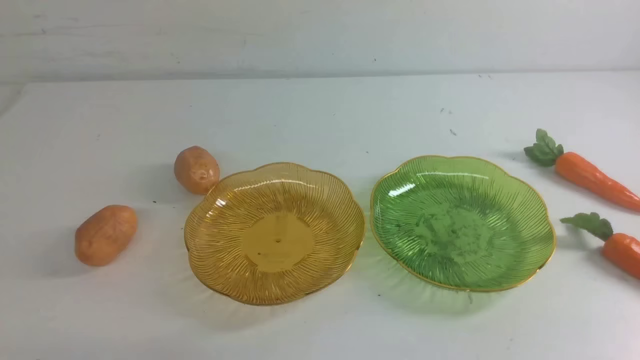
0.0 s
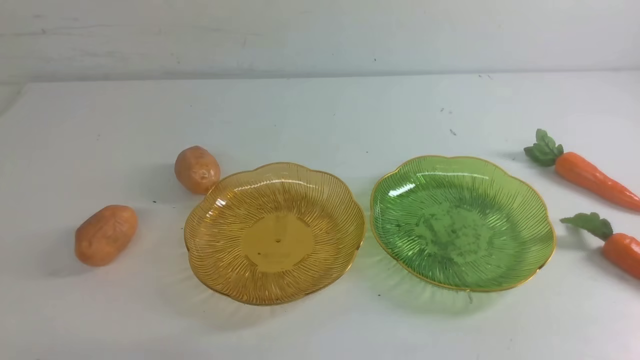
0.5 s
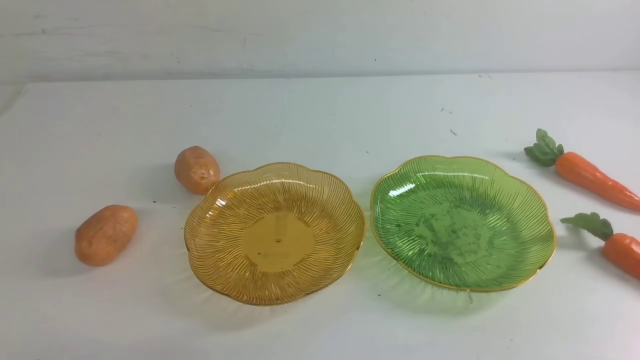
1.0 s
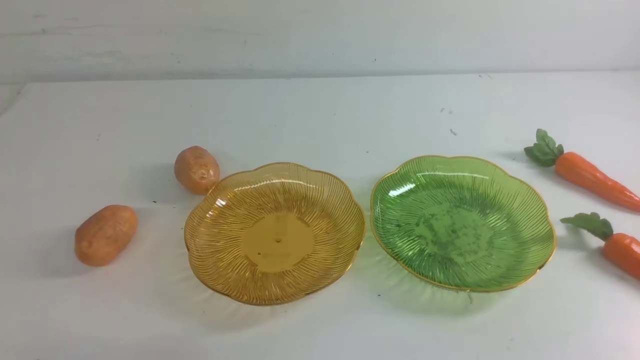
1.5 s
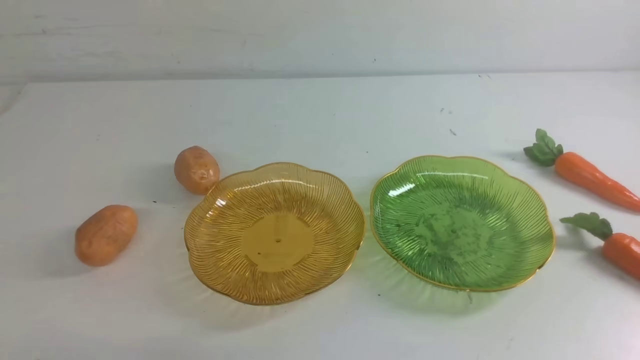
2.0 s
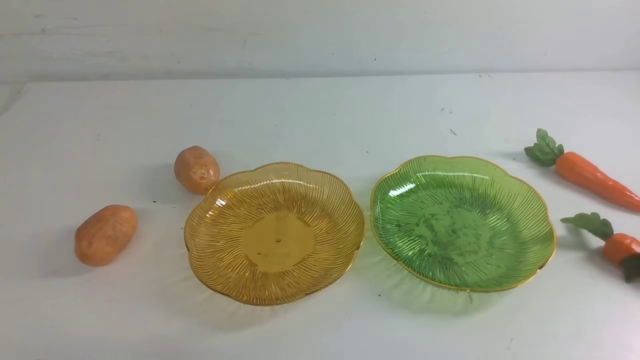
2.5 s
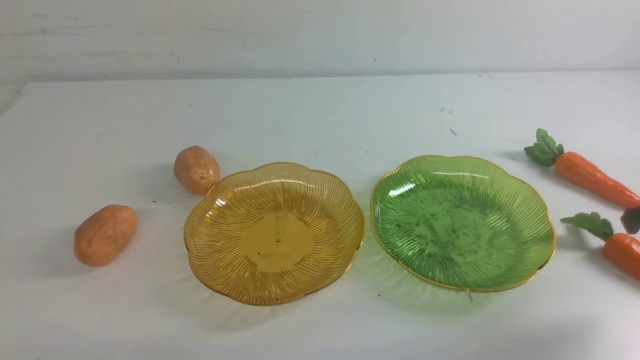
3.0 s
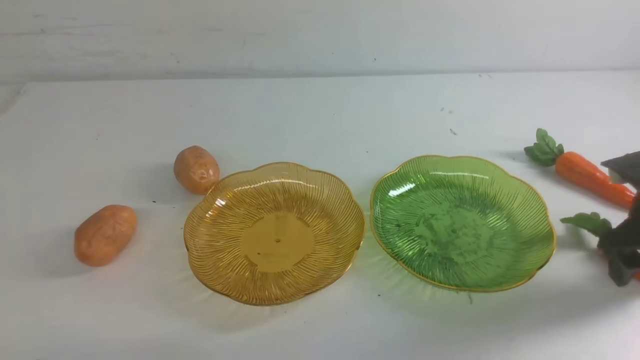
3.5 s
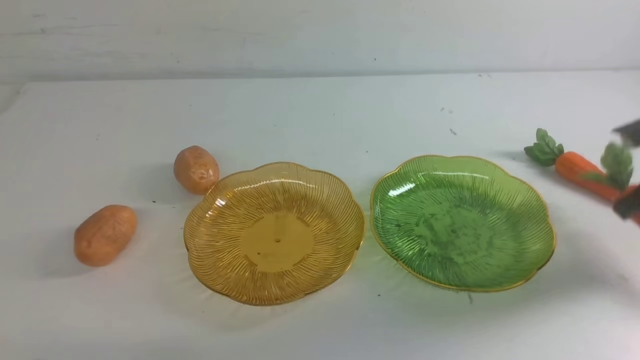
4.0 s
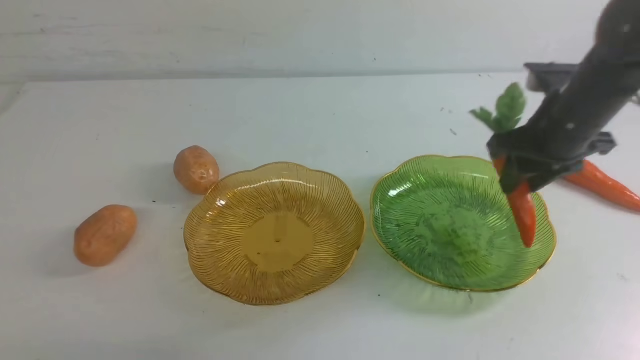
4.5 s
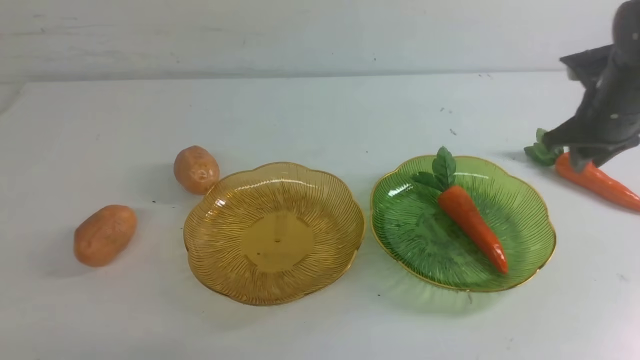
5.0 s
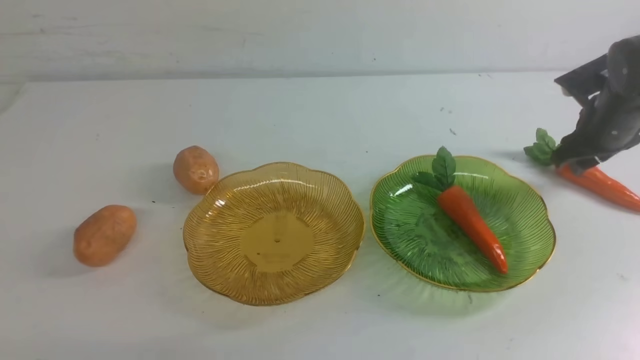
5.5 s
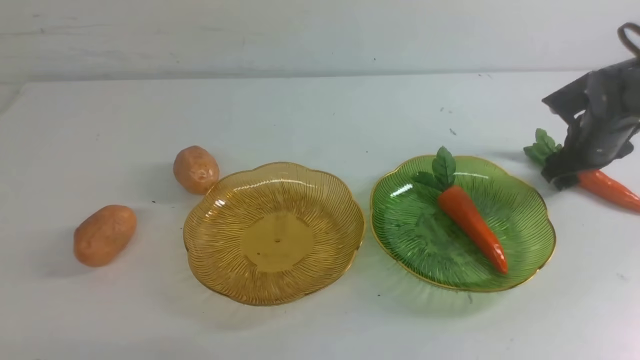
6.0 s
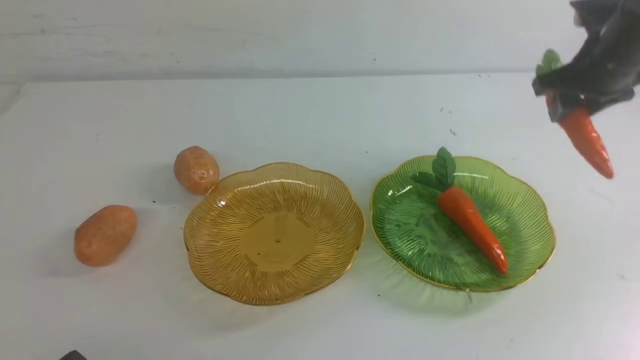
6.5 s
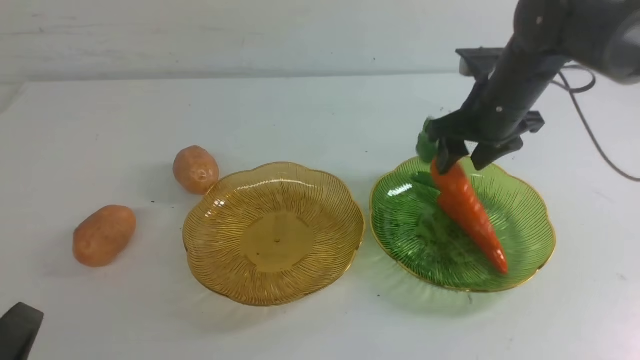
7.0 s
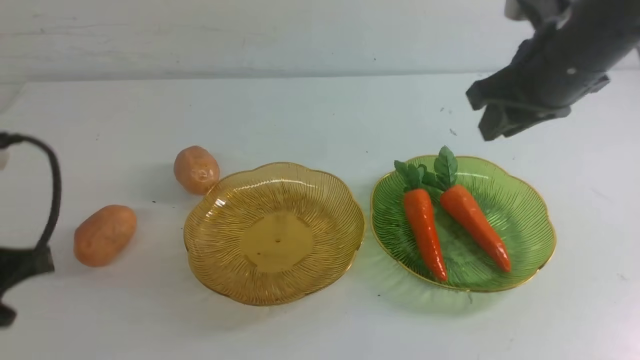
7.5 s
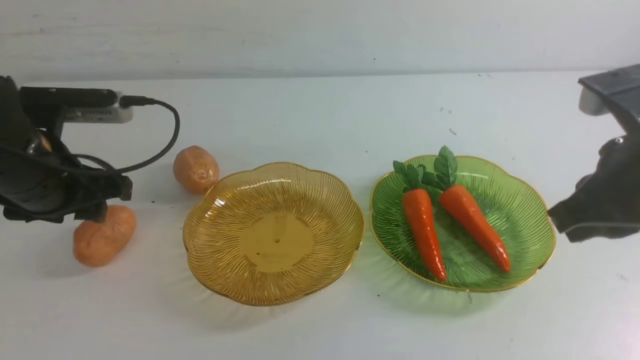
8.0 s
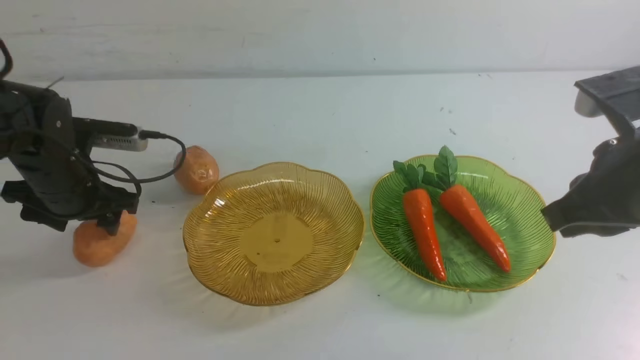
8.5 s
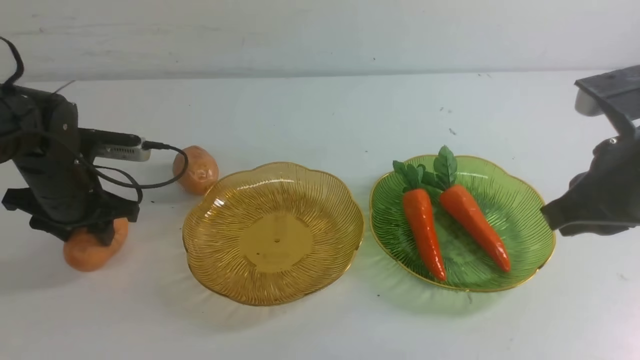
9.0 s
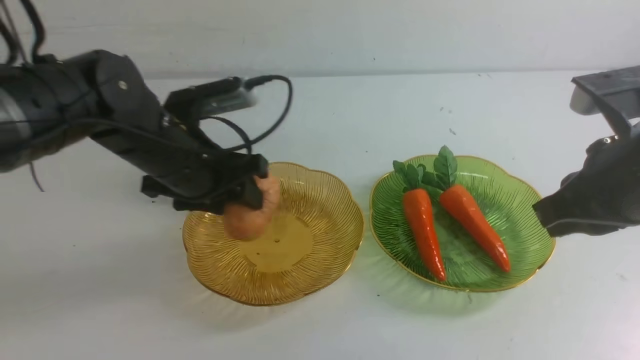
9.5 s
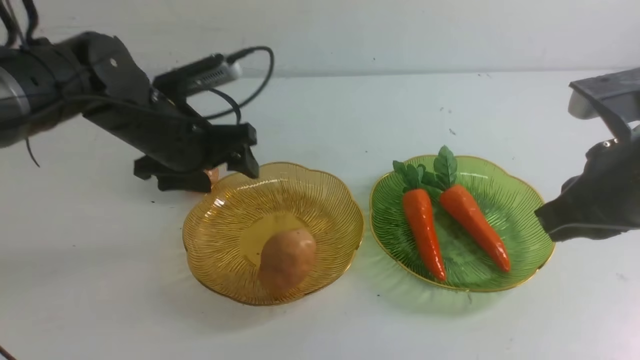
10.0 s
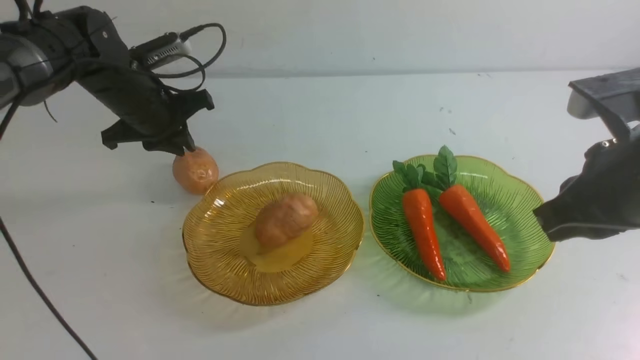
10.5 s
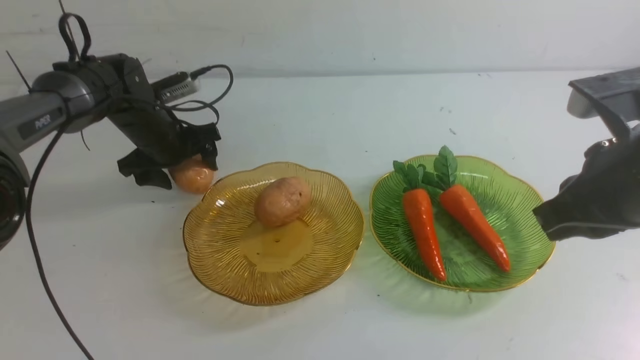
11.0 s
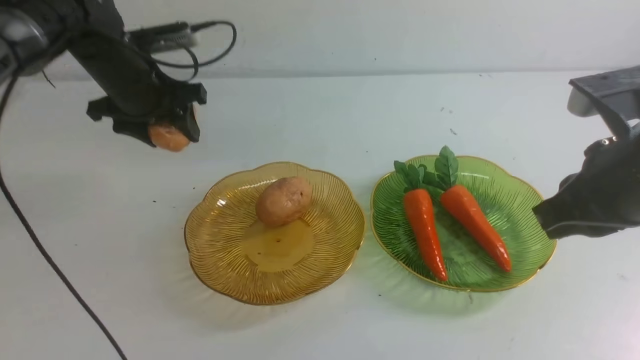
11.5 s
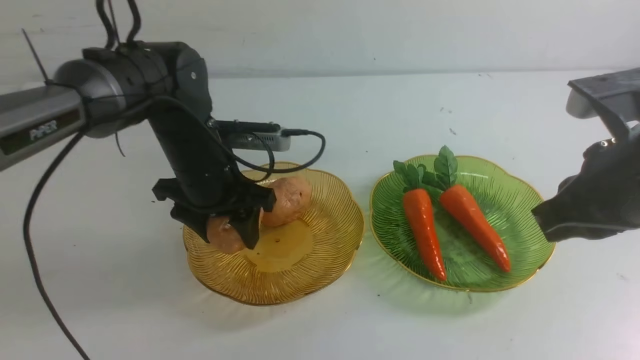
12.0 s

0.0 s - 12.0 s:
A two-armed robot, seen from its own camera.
Step, 0.0 s - 4.5 s: use the right arm to grab a carrot and put it into the right plate.
Step, 5.5 s - 7.0 s: use the right arm to grab a carrot and put it into the right plate.
Step, 7.5 s - 10.0 s: Grab a potato with your left arm and put it on the left plate.
2.0 s - 4.0 s: The right gripper goes roughly 30 cm forward, and opens up.
4.0 s - 6.0 s: The right gripper travels forward and downward by roughly 15 cm, and opens.
6.0 s - 8.0 s: The left gripper moves forward and upward, some 25 cm, and opens up. Meanwhile the right gripper travels backward, upward and to the left by approximately 30 cm, and closes up.
8.0 s - 10.0 s: The left gripper travels forward and to the right by some 10 cm.
10.0 s - 12.0 s: The left gripper moves approximately 10 cm forward and comes back, and closes, then reopens.

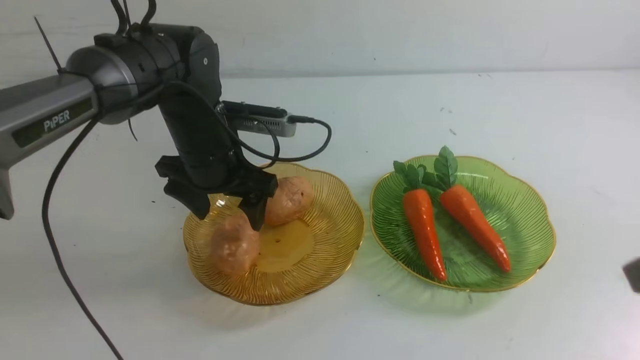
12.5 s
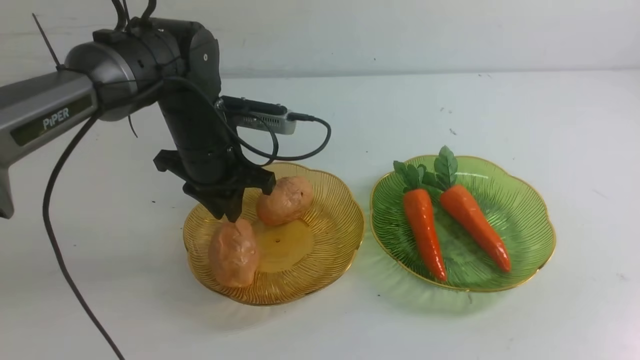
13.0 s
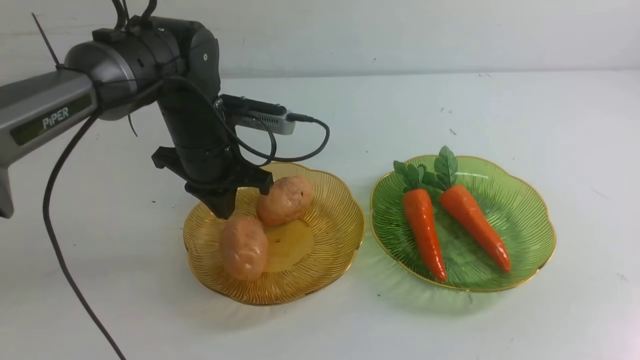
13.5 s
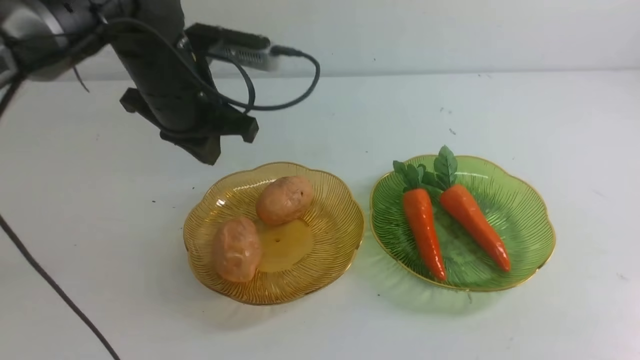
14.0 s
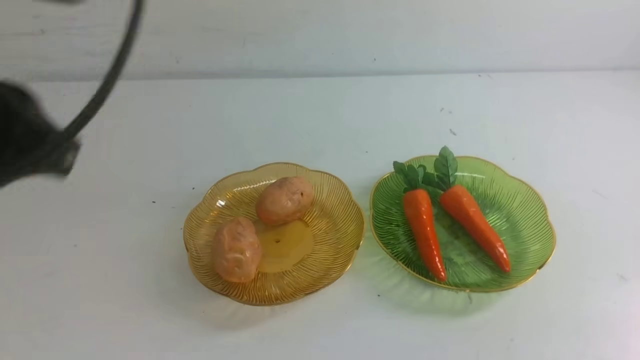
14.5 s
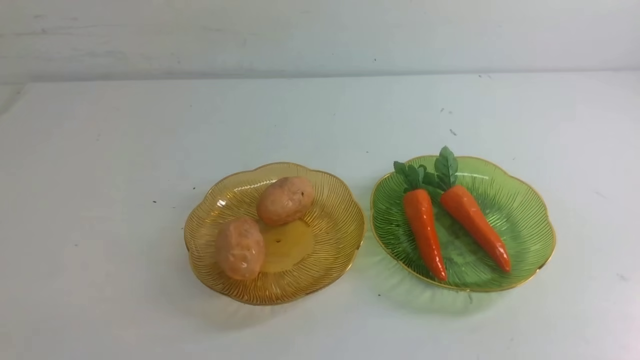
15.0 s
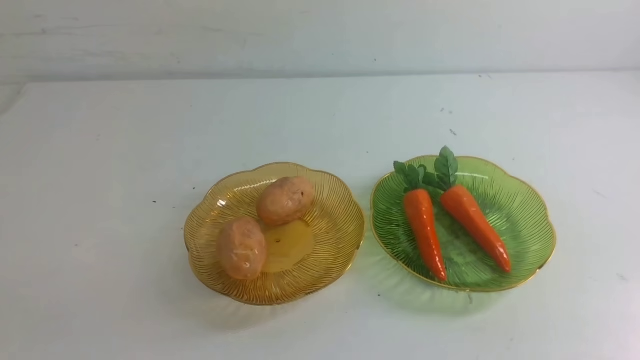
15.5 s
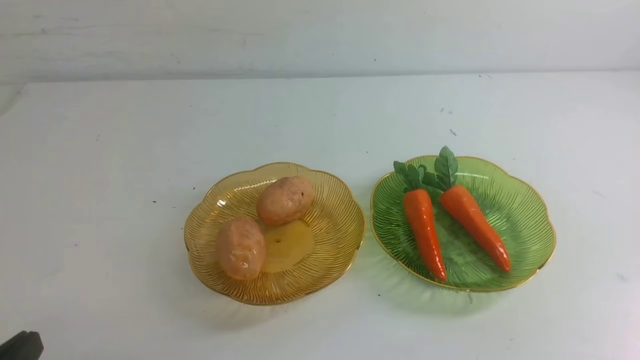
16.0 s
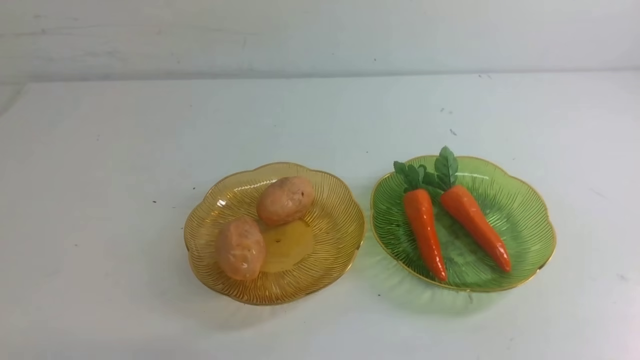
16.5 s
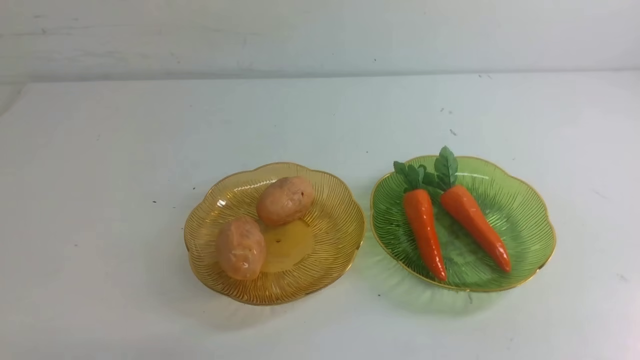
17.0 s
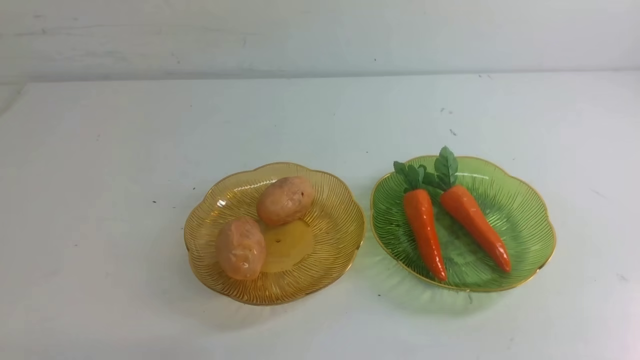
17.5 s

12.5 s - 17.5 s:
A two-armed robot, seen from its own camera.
12.5 s - 15.0 s: The right gripper shifts about 20 cm downward and backward. The left gripper travels backward by some 40 cm, and closes up.
